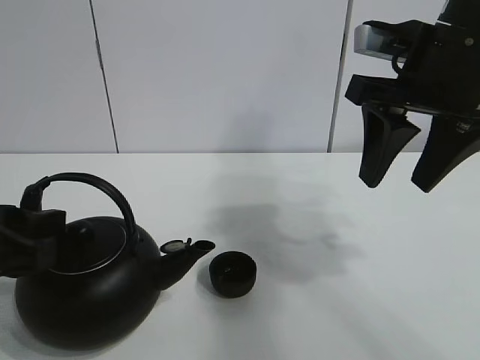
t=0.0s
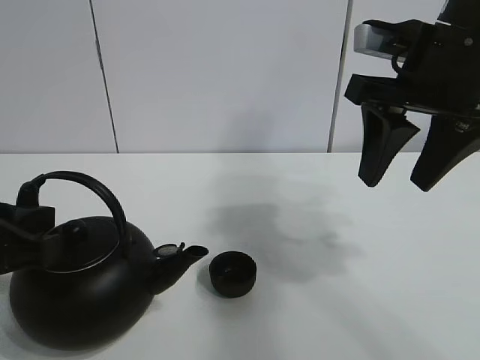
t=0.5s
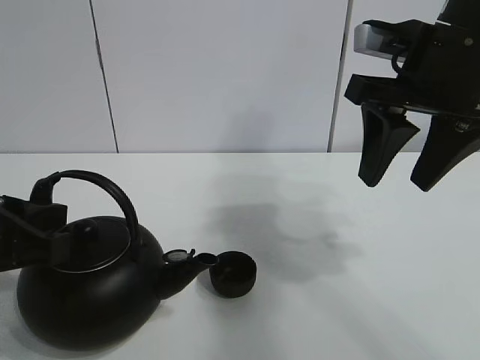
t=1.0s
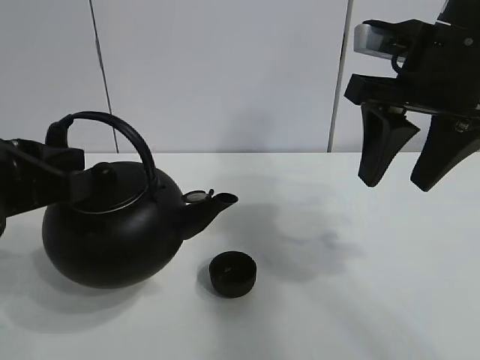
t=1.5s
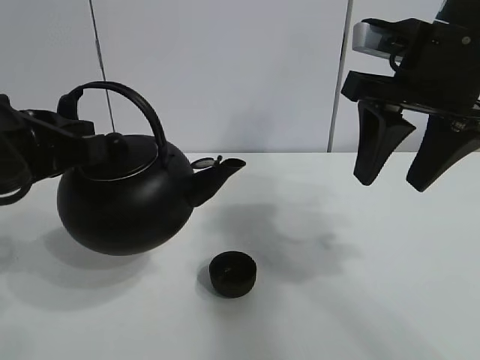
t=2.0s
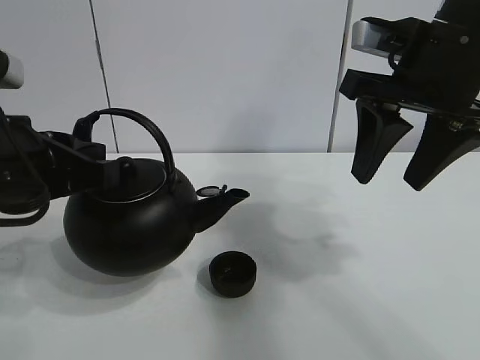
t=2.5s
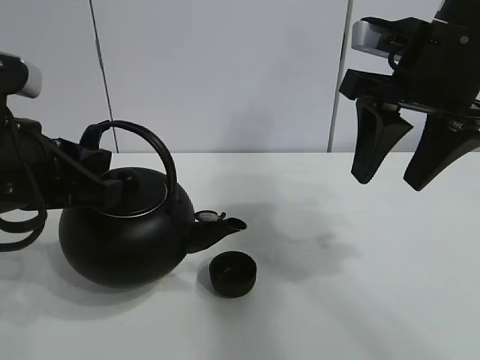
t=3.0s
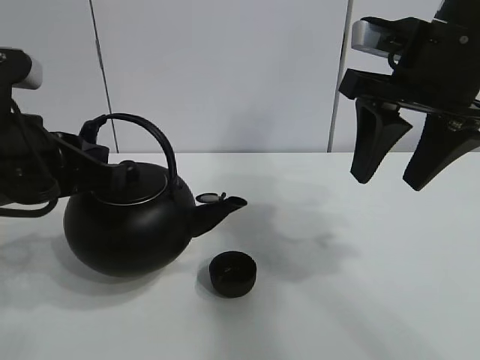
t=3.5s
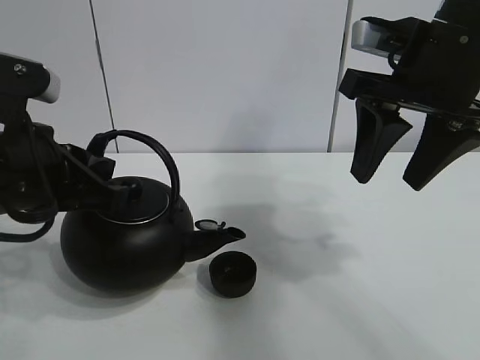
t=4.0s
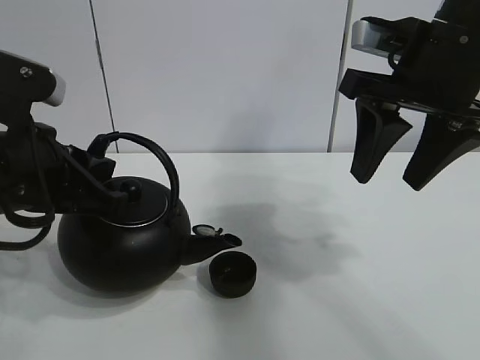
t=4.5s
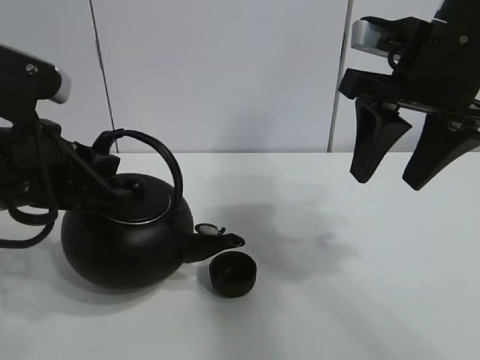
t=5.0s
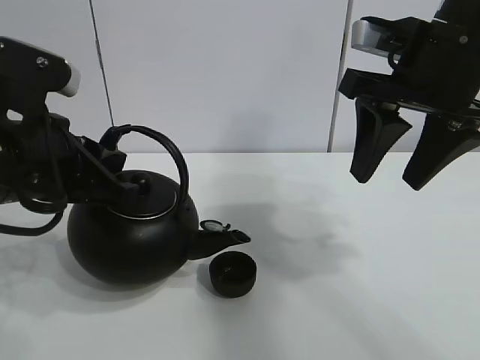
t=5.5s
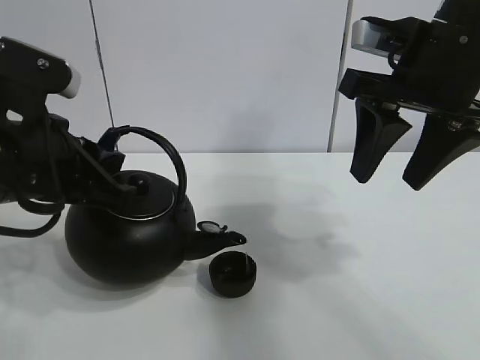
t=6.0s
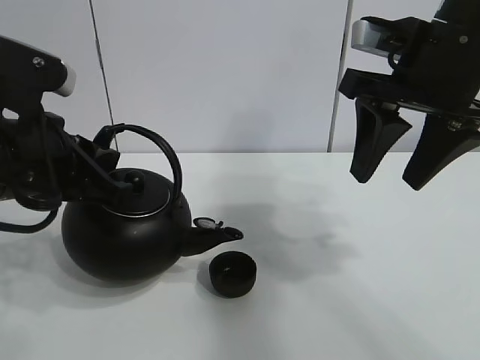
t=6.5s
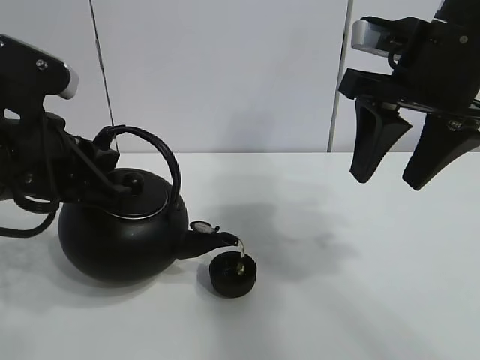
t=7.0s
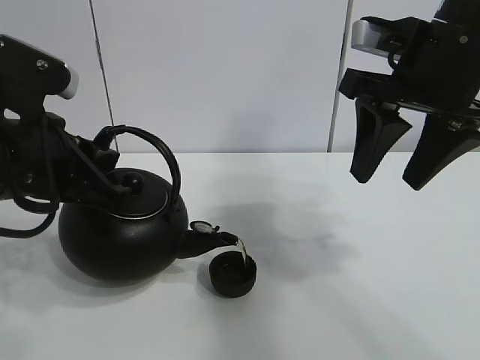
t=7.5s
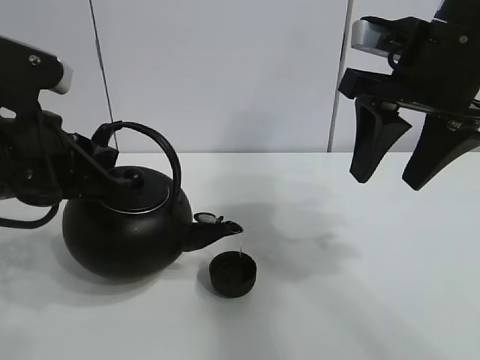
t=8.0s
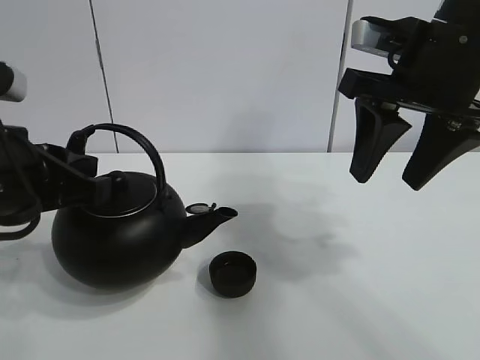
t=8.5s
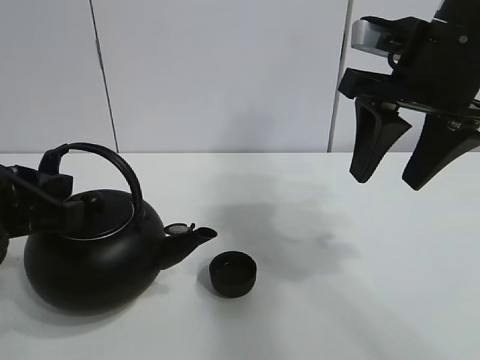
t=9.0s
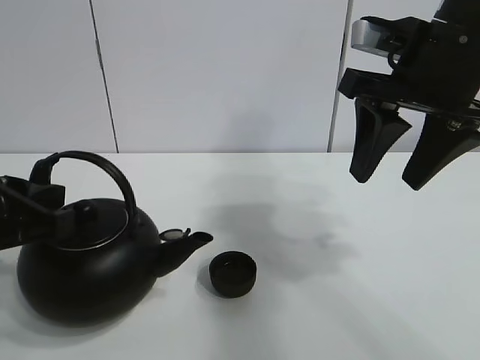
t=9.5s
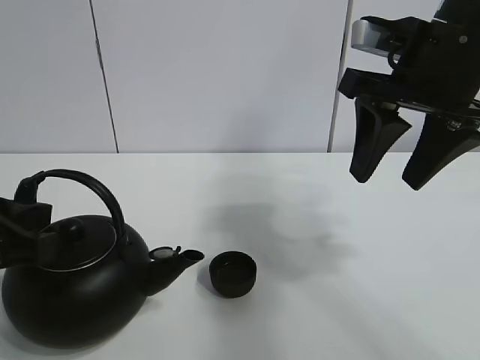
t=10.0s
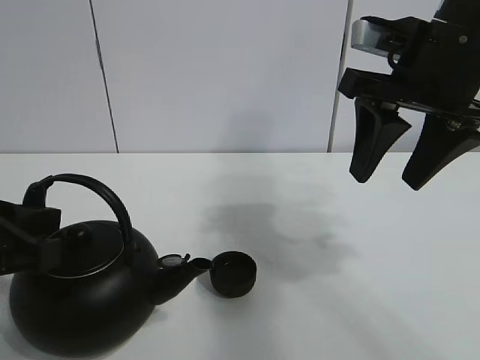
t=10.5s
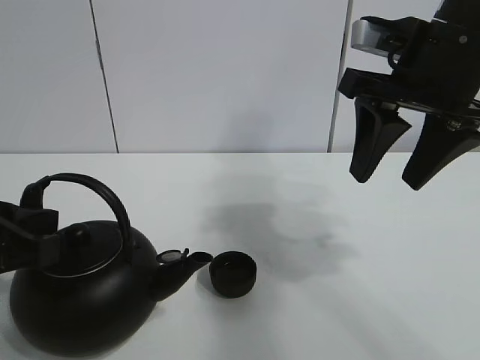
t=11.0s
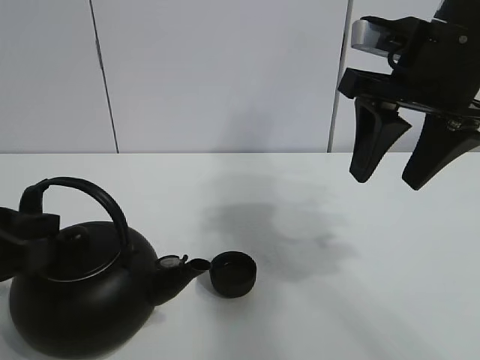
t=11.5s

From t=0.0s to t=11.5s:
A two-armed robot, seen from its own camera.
Task of the whole recording: pour tea into the teacup.
Step, from t=1.0s to t=8.0s: Pour tea into the teacup with the left gripper.
From t=0.0s to t=2.0s: The left gripper moves upward, some 5 cm, and closes.
From t=2.0s to t=4.0s: The grippers move only a little.
From t=4.0s to t=6.0s: The grippers stay close to where they were, moving slightly.
From t=6.0s to t=7.5s: The two grippers keep their place.
From t=7.5s to t=9.5s: The left gripper shifts by about 5 cm.
From t=9.5s to t=11.5s: The left gripper opens up.

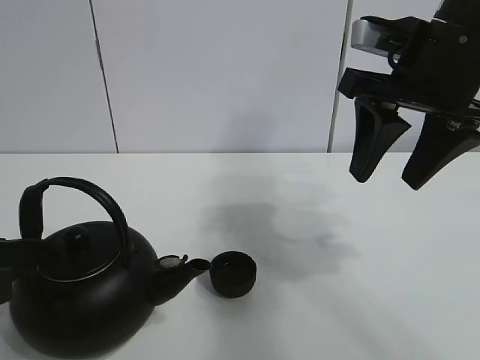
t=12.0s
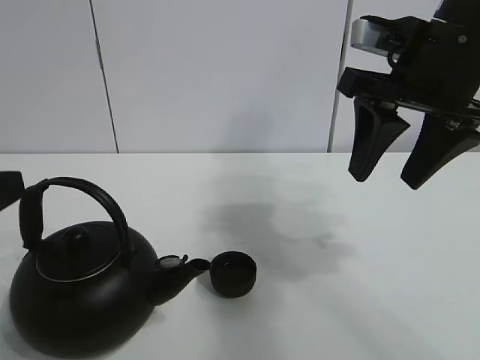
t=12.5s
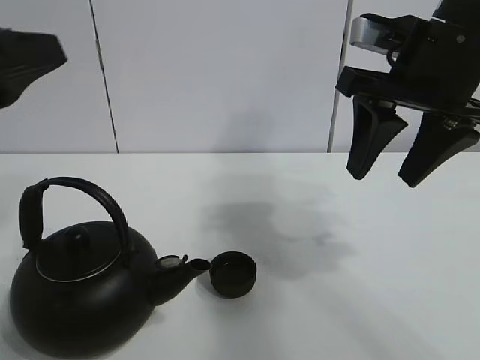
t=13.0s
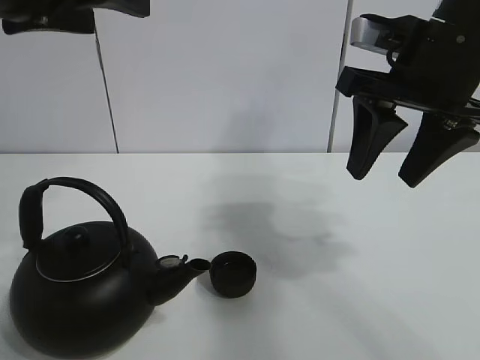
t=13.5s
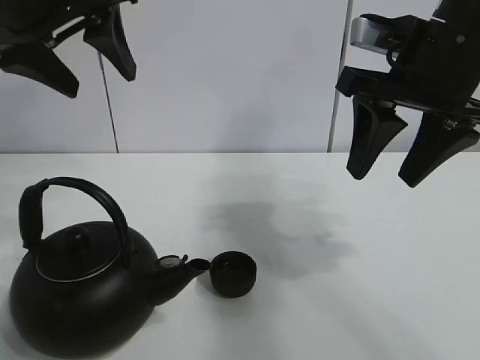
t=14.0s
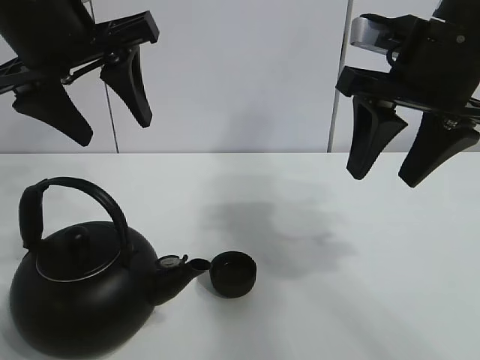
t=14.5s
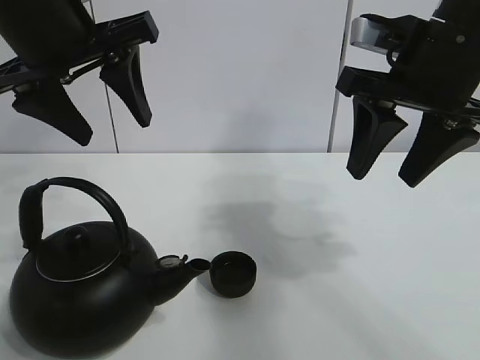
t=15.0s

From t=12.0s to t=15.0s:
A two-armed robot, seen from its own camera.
Task of the whole recording: pour tea into the teacup.
From t=12.0s to t=13.5s: The left gripper goes approximately 20 cm upward and forward, and opens its fingers.
From t=13.5s to t=15.0s: The left gripper shifts about 5 cm forward.

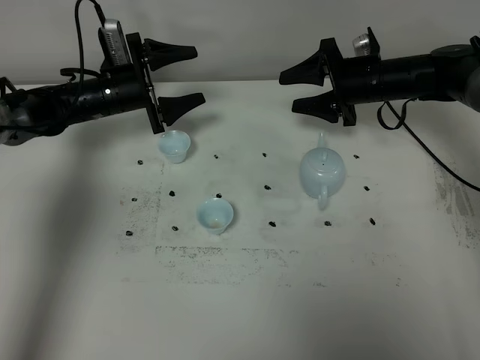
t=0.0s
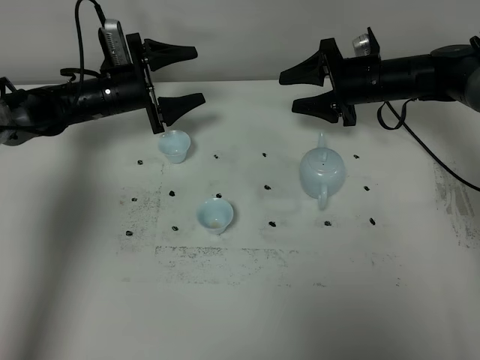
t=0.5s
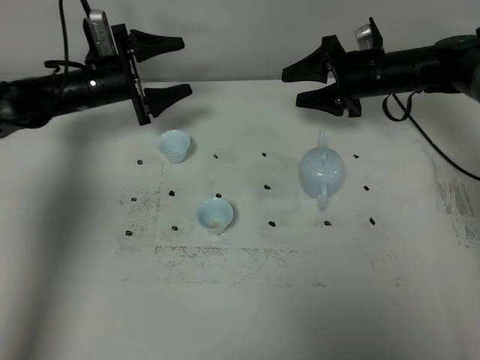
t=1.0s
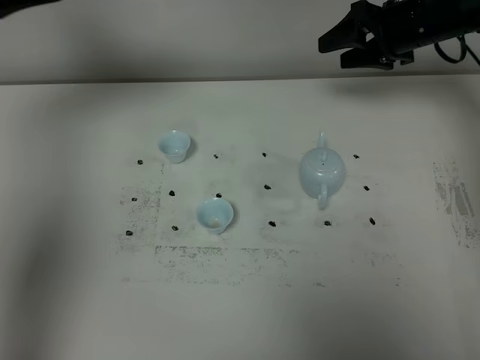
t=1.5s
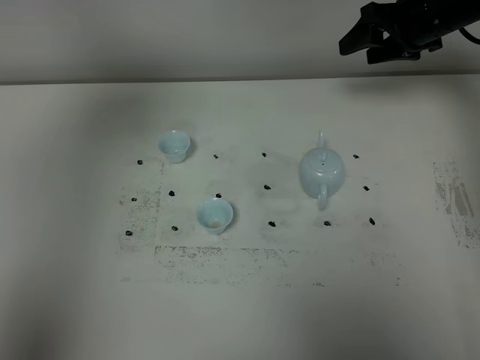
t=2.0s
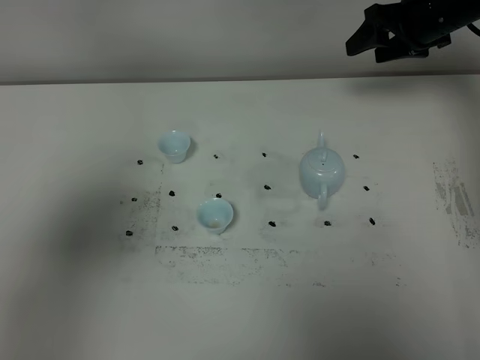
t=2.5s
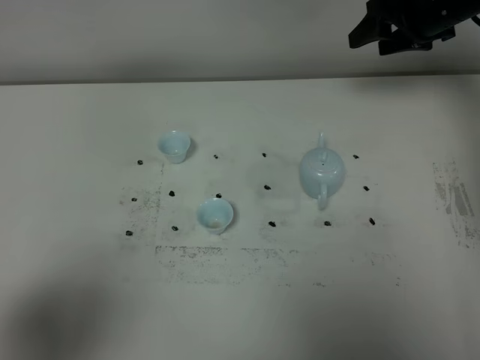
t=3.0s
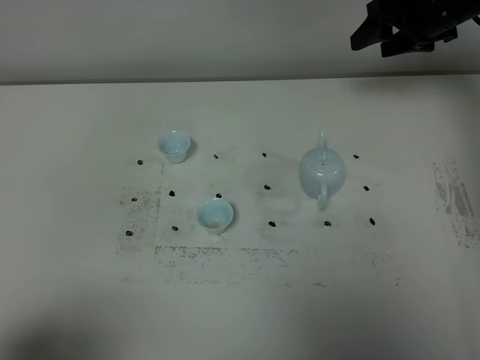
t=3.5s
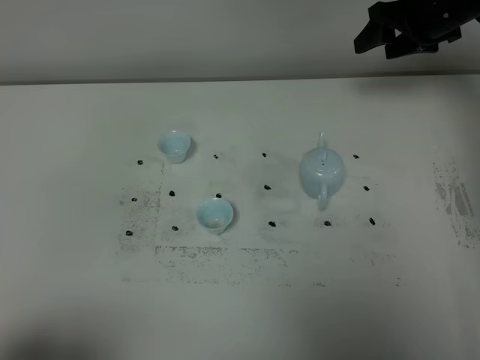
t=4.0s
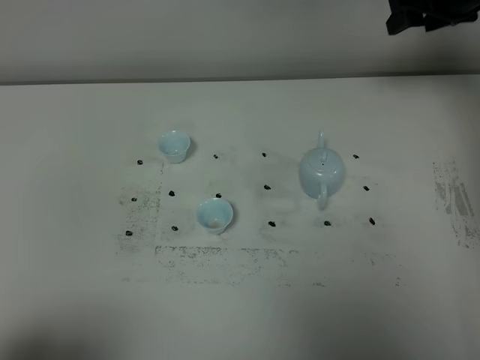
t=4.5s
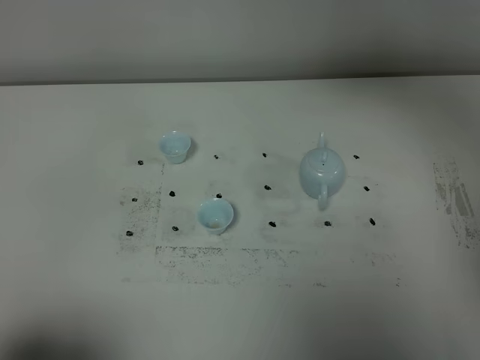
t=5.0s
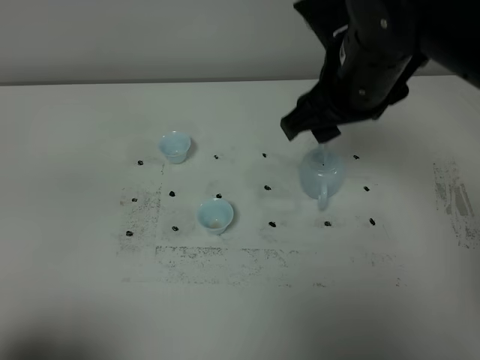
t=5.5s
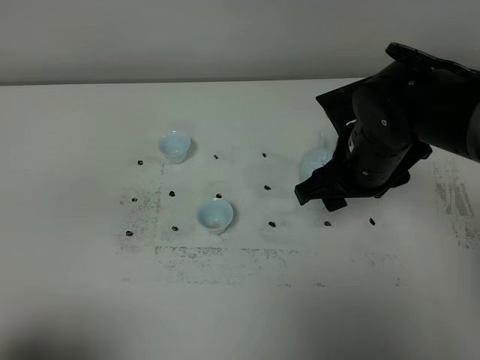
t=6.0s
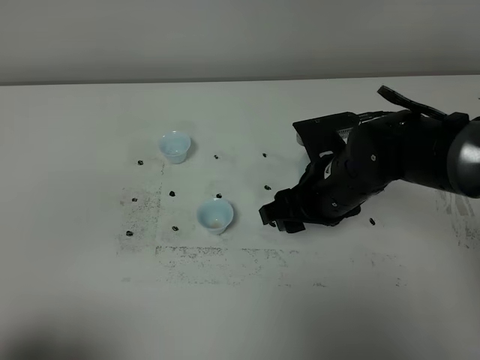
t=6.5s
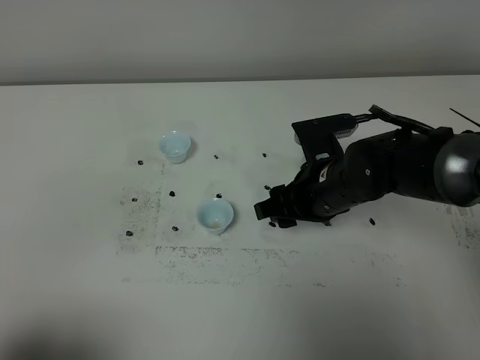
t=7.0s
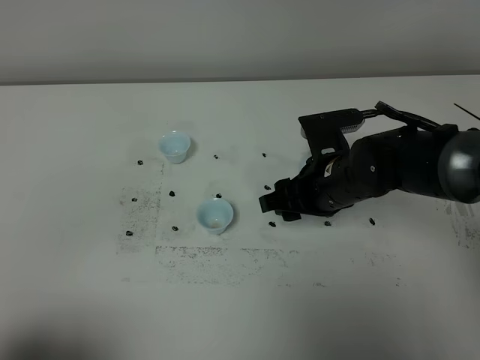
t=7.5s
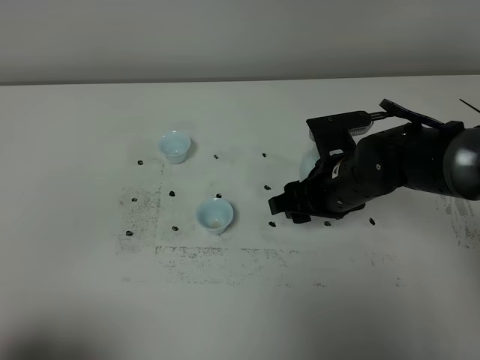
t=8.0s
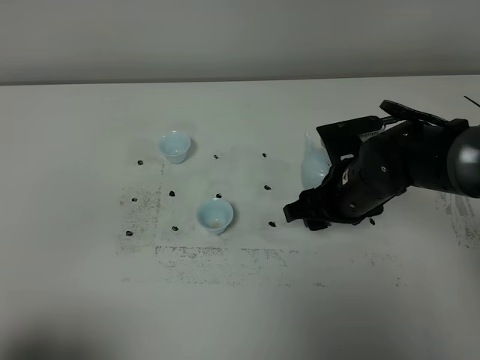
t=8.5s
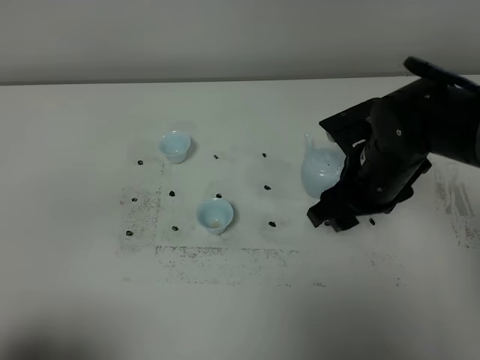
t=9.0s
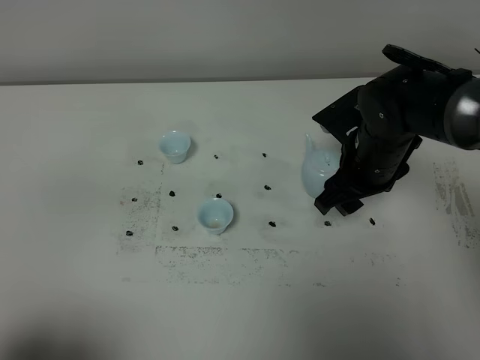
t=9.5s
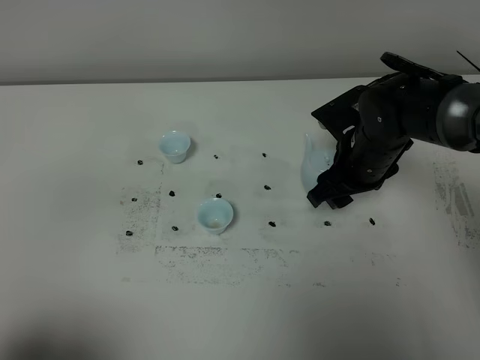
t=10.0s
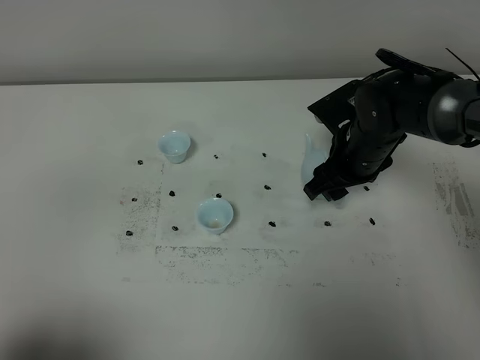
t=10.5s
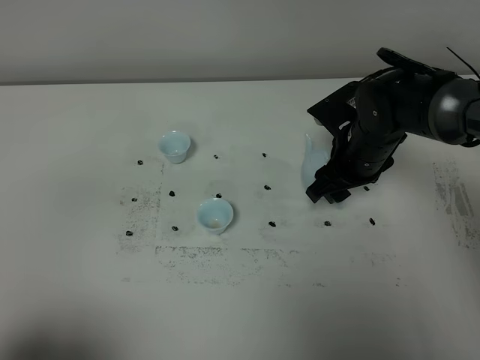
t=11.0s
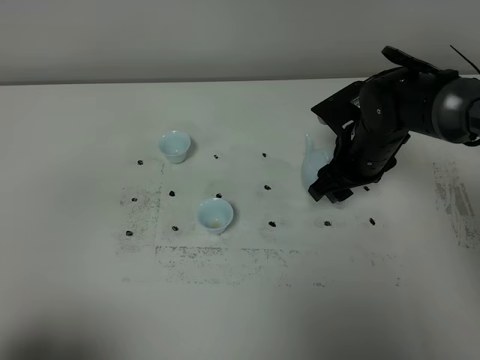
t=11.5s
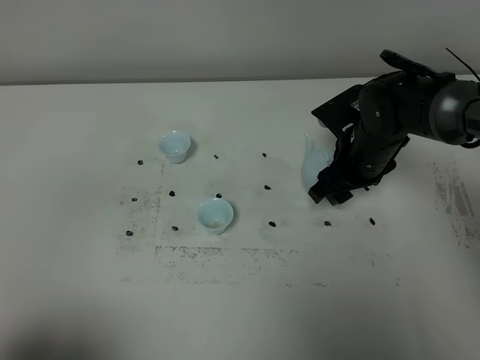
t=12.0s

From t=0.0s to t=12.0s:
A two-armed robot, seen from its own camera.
Task of the whole recording: grasp the blue porcelain teapot and pour the tea into the two blue porcelain teacups one by one, put the blue porcelain teapot back in its original place.
From t=0.0s to t=2.0s: The left gripper heads upward and backward, covering approximately 50 cm. Meanwhile the right gripper goes roughly 10 cm upward and to the right.
From t=2.0s to t=4.0s: The left gripper is displaced backward and downward by some 35 cm.
From t=4.0s to t=6.0s: The right gripper goes about 25 cm backward and to the left, and travels upward and back again, roughly 20 cm each way.
From t=6.0s to t=8.0s: The right gripper goes about 5 cm downward.
From t=8.0s to t=10.0s: The right gripper ends up some 5 cm from where it was.
From t=10.0s to t=12.0s: The grippers stay close to where they were, moving slightly.
